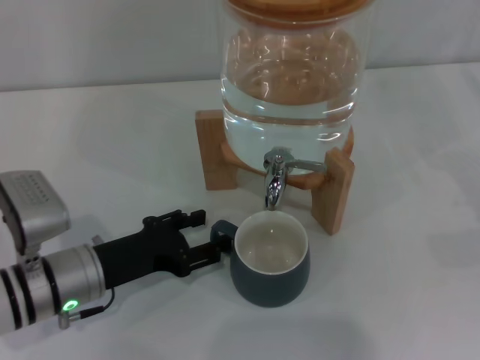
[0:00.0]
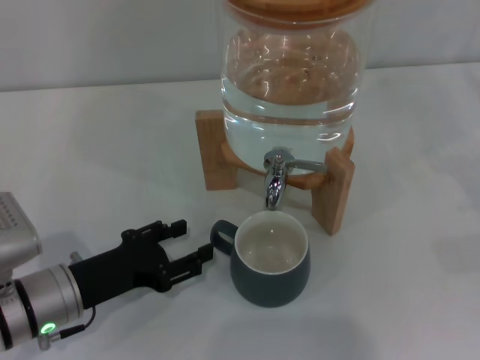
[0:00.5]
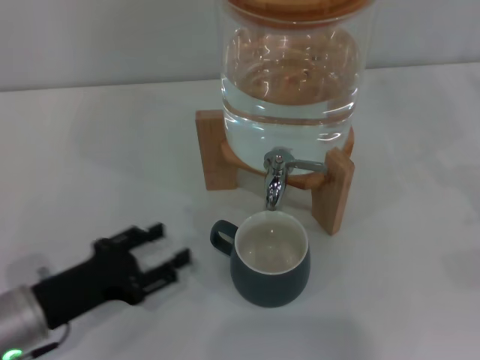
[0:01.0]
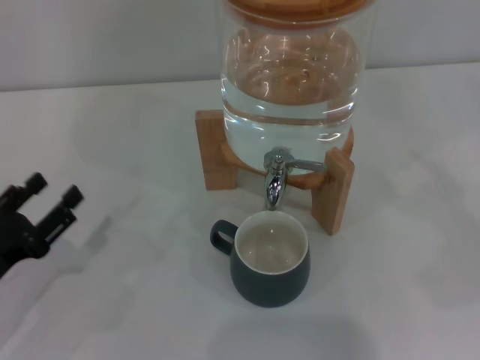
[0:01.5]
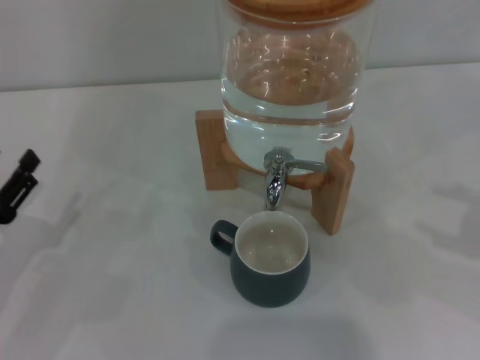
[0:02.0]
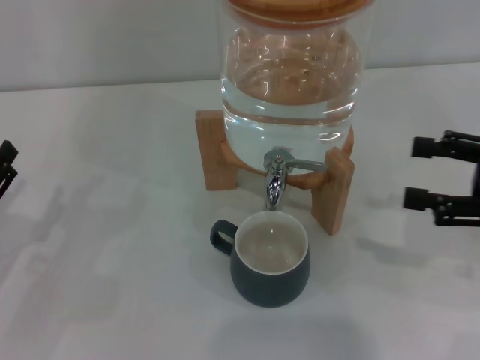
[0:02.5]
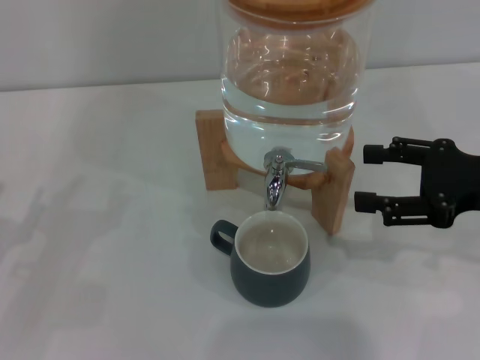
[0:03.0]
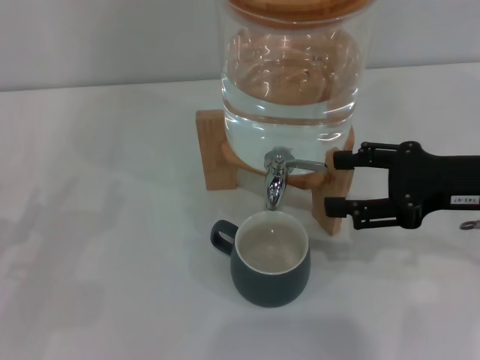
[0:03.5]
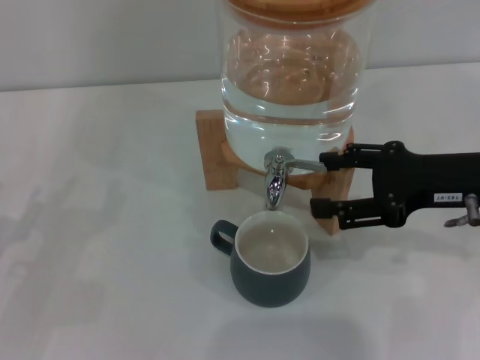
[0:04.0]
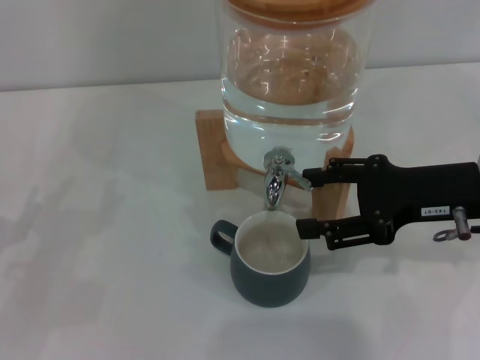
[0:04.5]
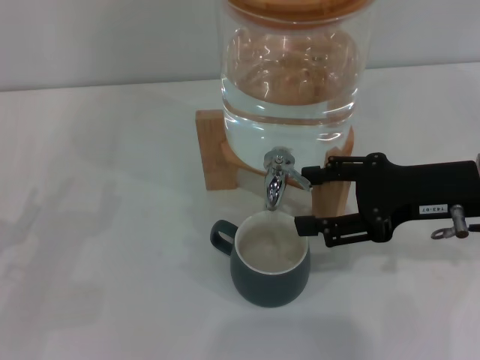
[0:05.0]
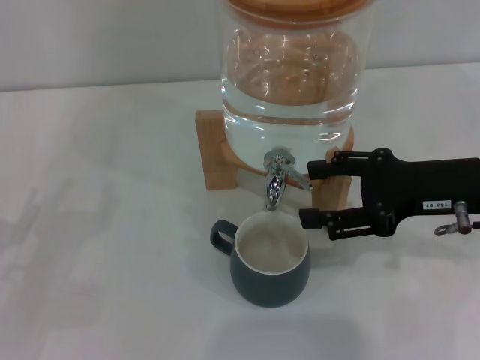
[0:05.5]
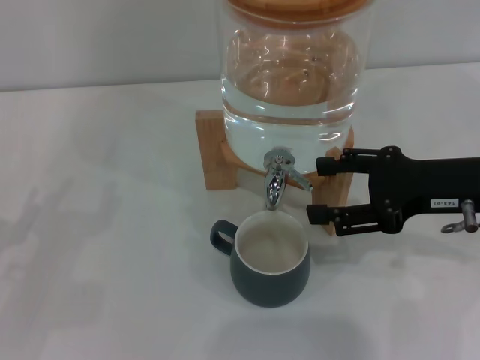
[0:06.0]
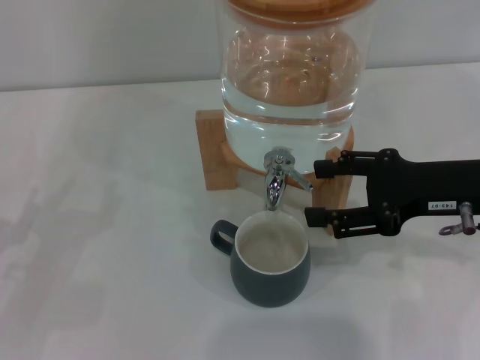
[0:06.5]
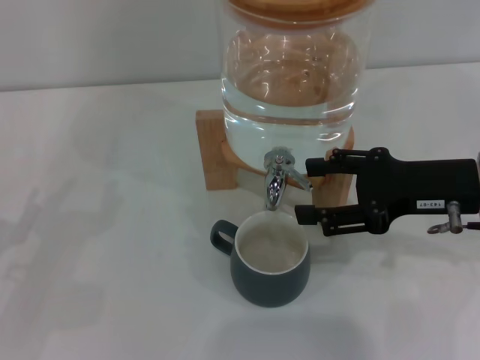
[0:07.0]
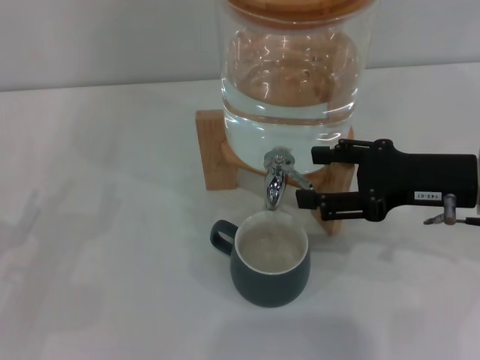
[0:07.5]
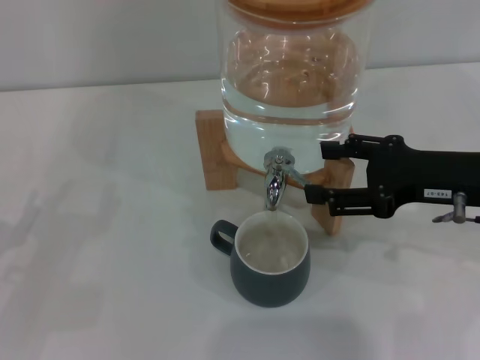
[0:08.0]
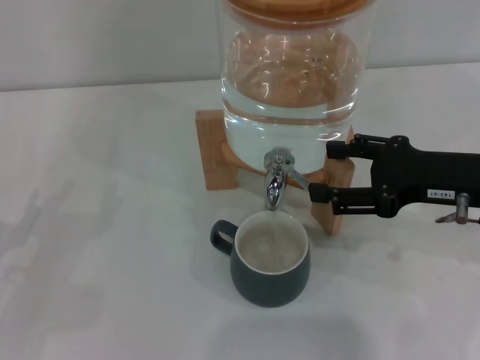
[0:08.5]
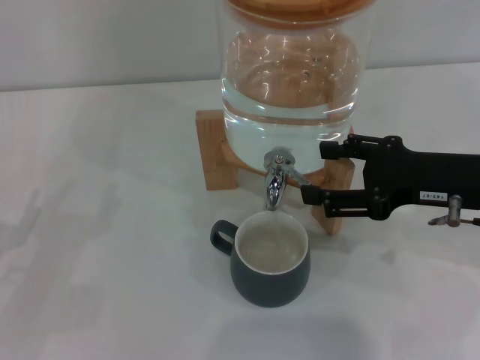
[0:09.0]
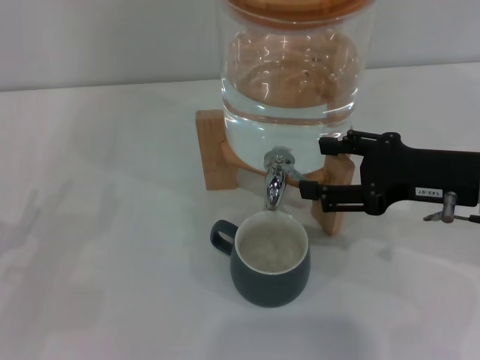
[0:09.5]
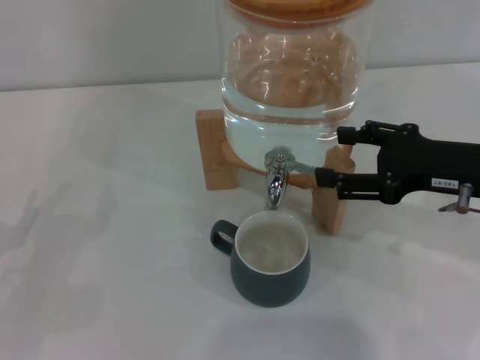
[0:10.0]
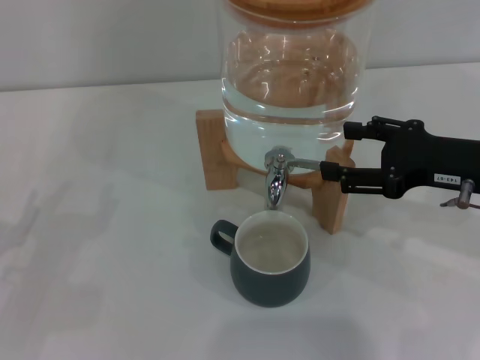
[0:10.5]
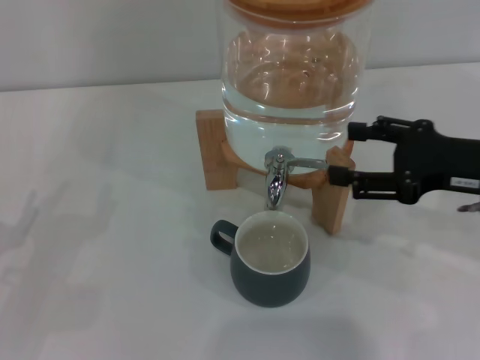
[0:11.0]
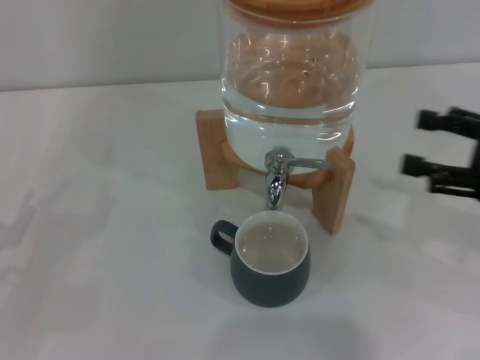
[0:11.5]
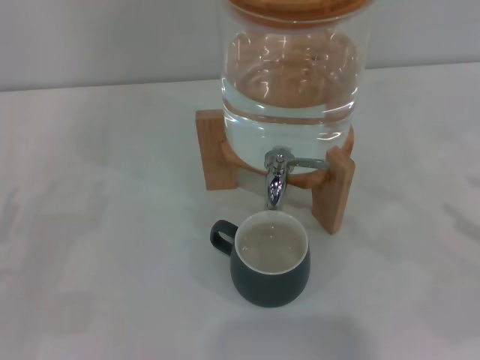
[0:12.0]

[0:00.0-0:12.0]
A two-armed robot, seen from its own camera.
Task of the whole recording: the left gripper pick up the black cup and place it horizontally under the faucet, the right gripper turn on the faucet to fill the cup, and then turn off the faucet.
Step, 0:00.5 to 0:05.5: Open the dispenser valve and fill the cup with water with the right gripper.
Step, 0:06.0 to 0:11.0: Close the dispenser valve with the right gripper.
0:00.0 to 0:02.0: The right gripper heads upward and to the left, covering about 10 cm. Meanwhile the left gripper heads to the left, covering some 10 cm.
0:02.0 to 0:04.0: The right gripper travels to the left and forward by some 15 cm.
0:04.0 to 0:10.0: There are only small adjustments of the grippers.
0:10.0 to 0:12.0: The right gripper goes roughly 15 cm to the right, backward and downward.
